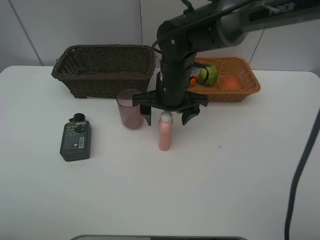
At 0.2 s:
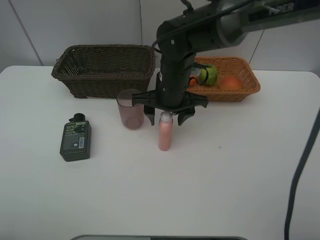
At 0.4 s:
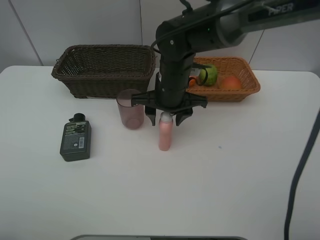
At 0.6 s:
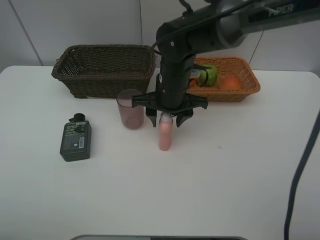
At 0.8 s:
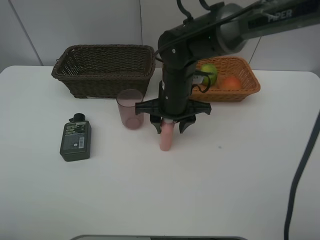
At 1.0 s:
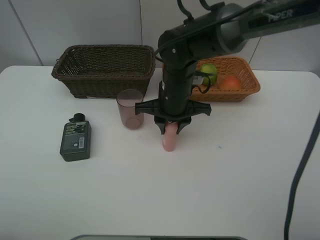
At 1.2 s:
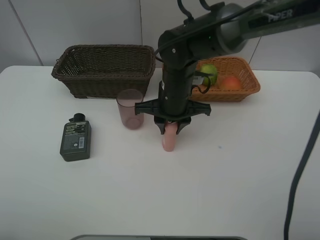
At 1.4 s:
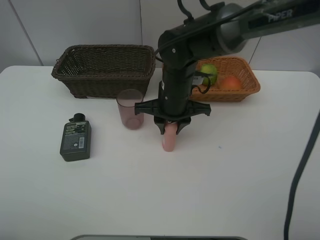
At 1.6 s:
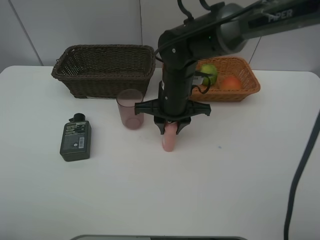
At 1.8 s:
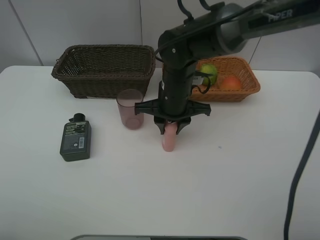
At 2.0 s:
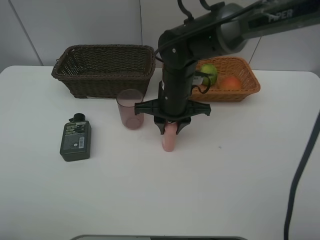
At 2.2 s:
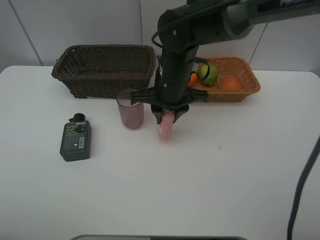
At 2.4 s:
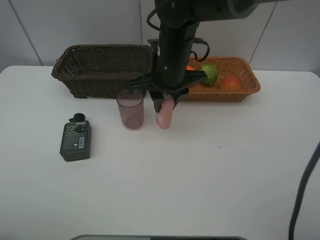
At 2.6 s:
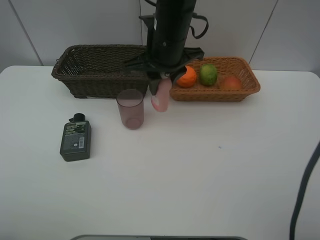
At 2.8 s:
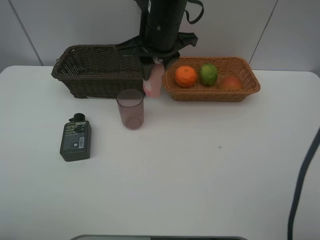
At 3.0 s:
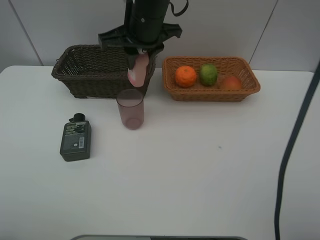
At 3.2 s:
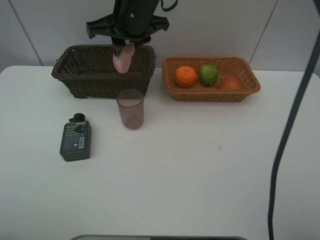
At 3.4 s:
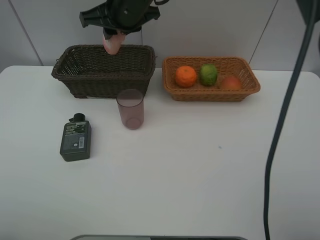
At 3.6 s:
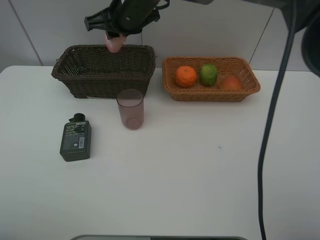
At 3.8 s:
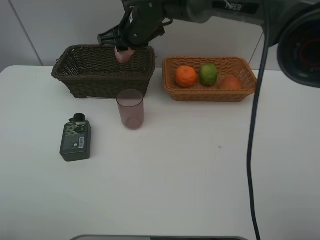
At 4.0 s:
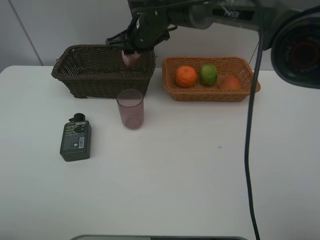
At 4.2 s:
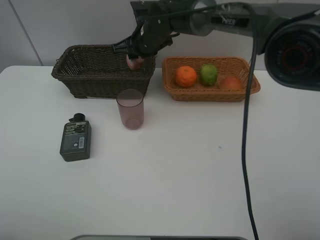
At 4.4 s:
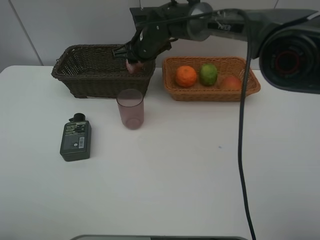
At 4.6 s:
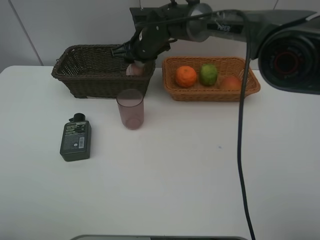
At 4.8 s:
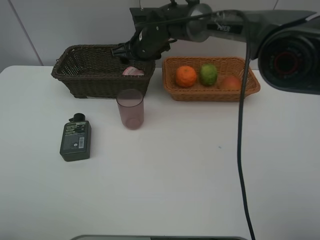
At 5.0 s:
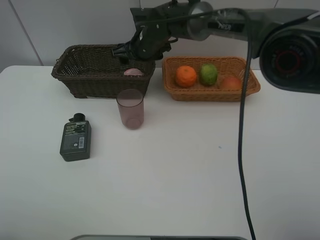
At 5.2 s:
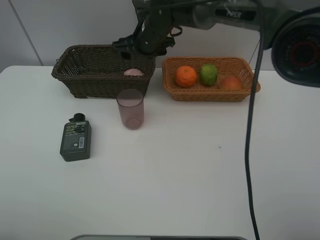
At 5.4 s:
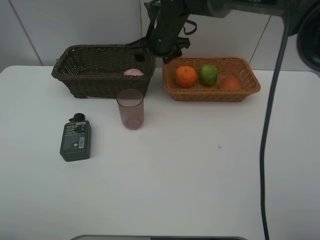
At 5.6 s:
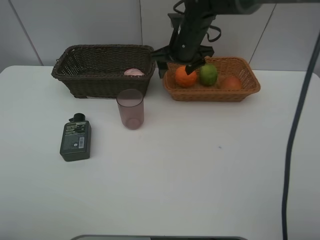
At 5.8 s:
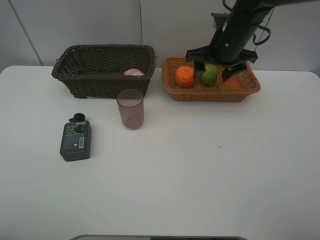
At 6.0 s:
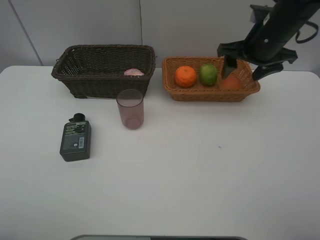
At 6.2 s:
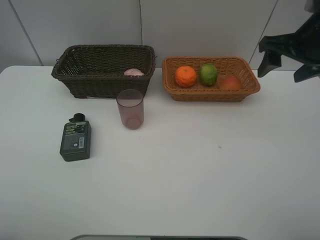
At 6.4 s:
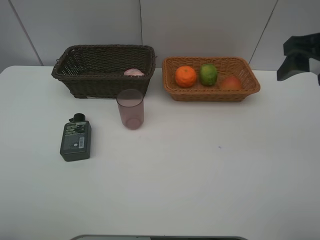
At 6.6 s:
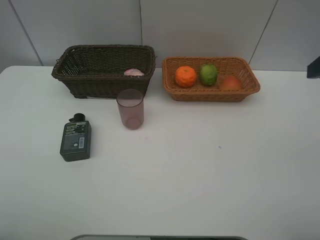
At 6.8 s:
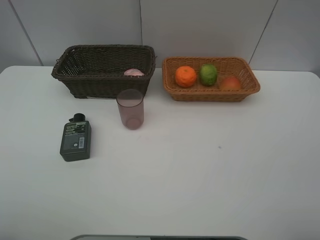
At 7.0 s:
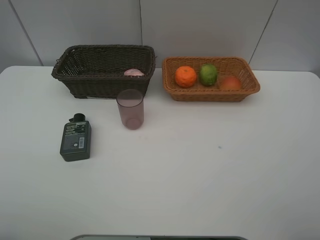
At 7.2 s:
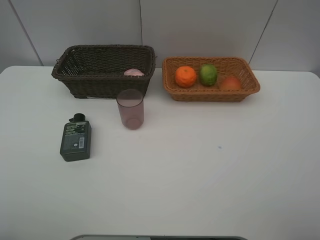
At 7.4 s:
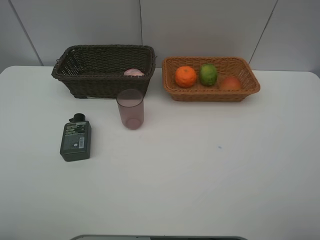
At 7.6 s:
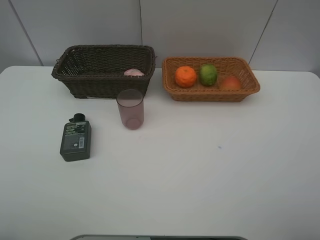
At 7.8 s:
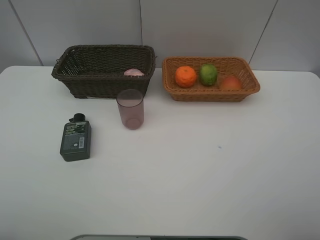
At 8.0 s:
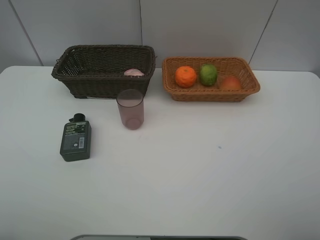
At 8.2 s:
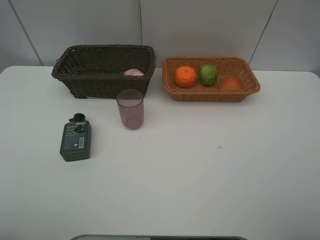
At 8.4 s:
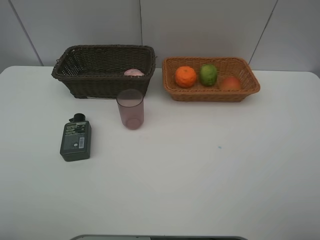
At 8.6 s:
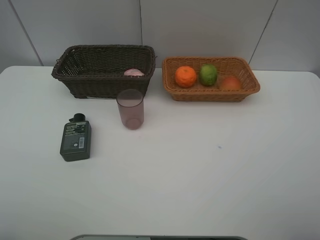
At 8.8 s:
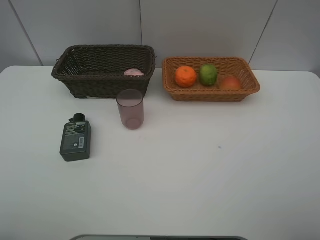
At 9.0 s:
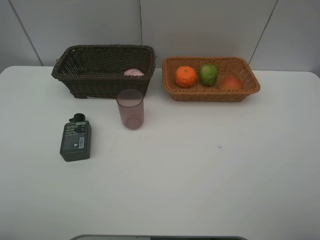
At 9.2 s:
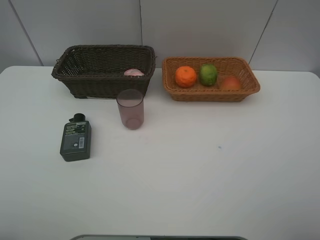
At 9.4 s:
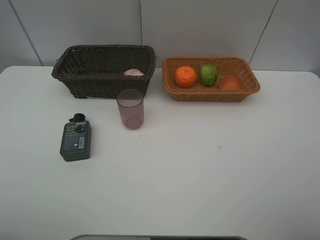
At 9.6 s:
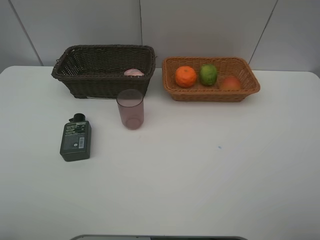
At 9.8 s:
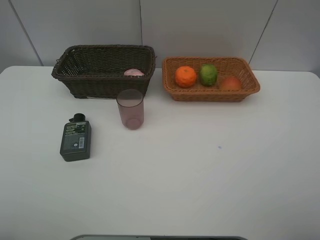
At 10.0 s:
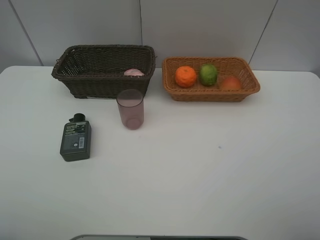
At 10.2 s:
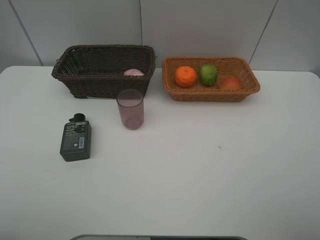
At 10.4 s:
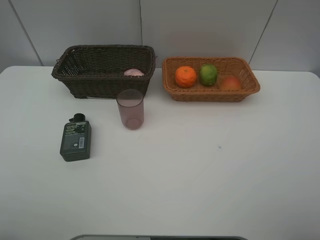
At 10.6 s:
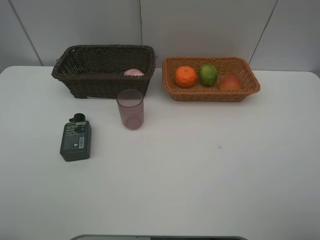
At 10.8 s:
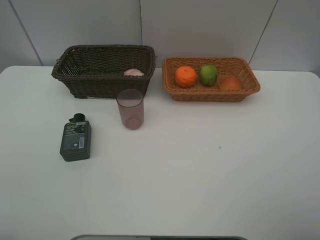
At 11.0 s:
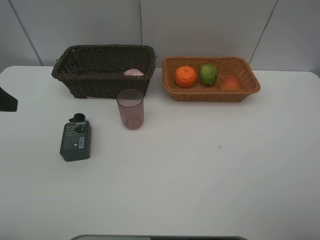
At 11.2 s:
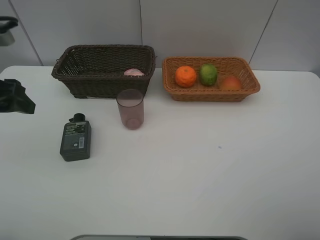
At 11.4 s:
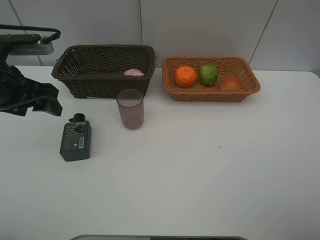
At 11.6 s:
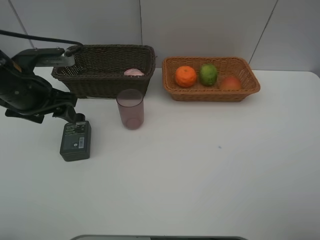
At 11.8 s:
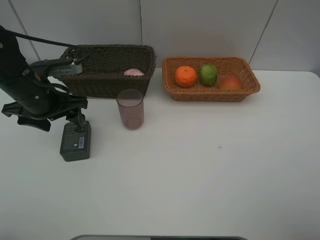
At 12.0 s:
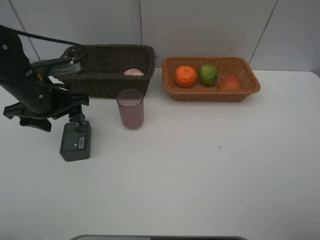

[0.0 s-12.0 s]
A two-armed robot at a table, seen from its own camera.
Task of the whole recording: place multiple objects separately in different baskets.
0.0 to 1.6 s: The right gripper closes.
1.6 to 3.0 s: The right gripper moves upward and to the left, approximately 15 cm.
3.0 to 4.4 s: The right gripper goes roughly 15 cm downward and forward.
4.4 to 6.0 s: The right gripper is displaced to the right and backward by roughly 25 cm, and opens its fingers.
6.0 to 7.6 s: The right gripper is displaced backward by some 35 cm.
10.4 to 12.0 s: The left gripper is displaced forward and downward by about 30 cm.

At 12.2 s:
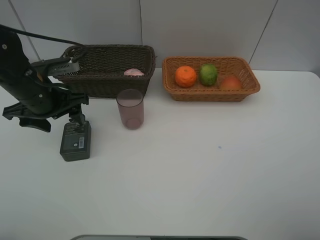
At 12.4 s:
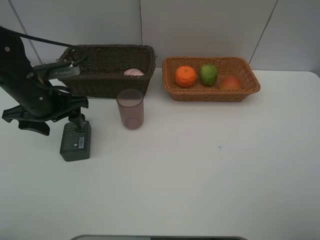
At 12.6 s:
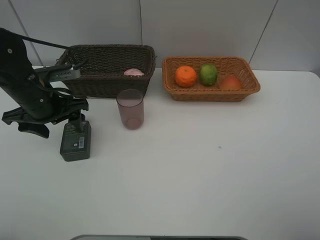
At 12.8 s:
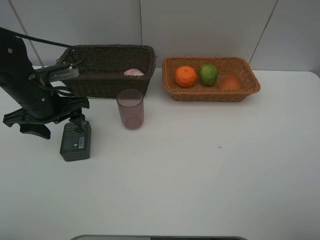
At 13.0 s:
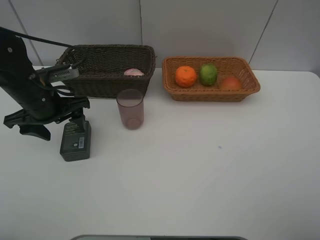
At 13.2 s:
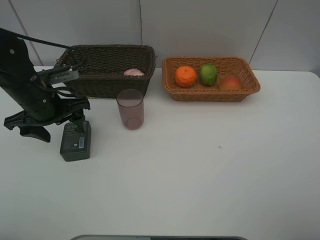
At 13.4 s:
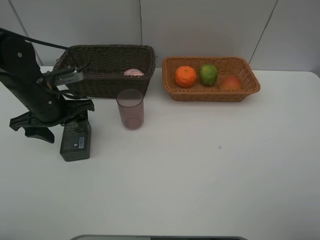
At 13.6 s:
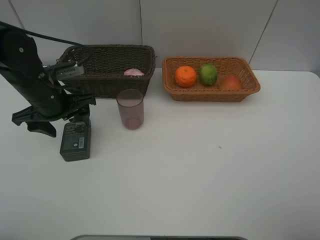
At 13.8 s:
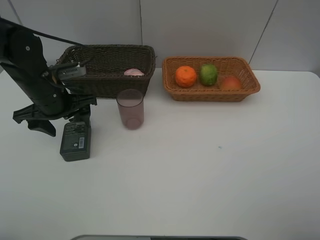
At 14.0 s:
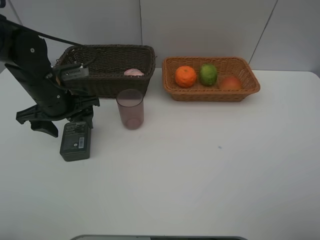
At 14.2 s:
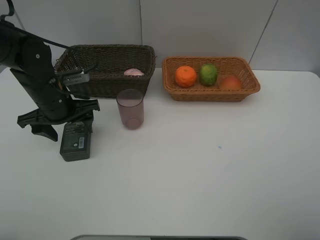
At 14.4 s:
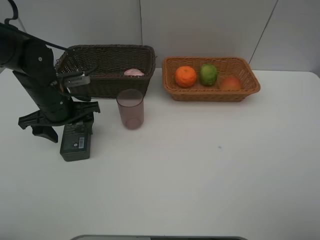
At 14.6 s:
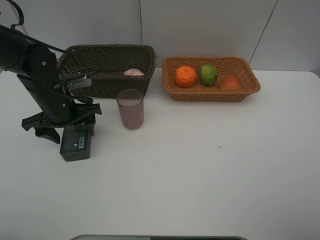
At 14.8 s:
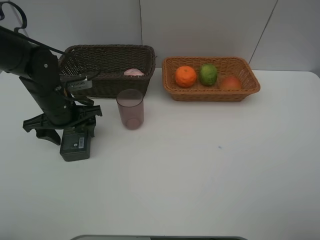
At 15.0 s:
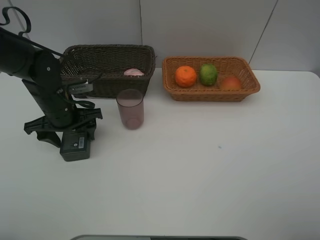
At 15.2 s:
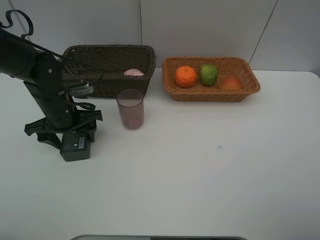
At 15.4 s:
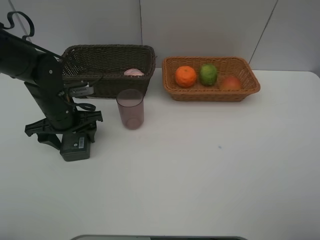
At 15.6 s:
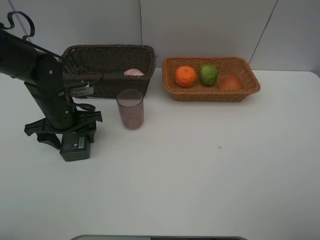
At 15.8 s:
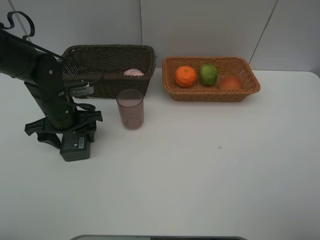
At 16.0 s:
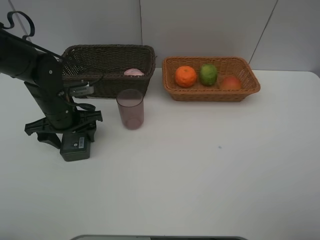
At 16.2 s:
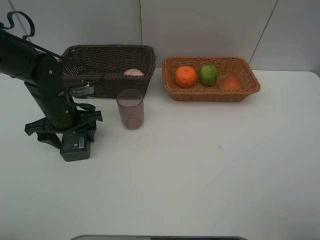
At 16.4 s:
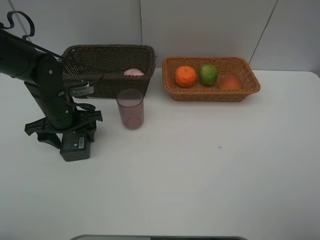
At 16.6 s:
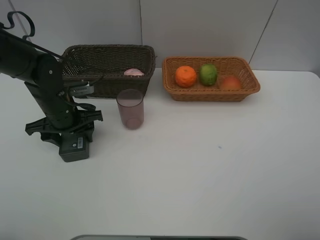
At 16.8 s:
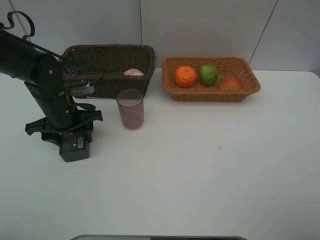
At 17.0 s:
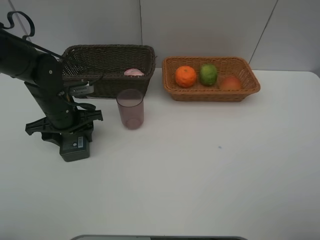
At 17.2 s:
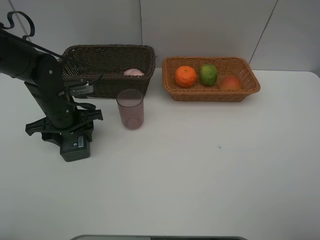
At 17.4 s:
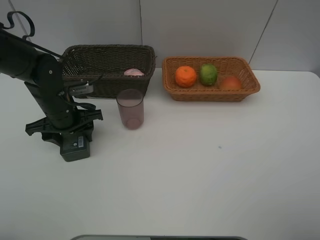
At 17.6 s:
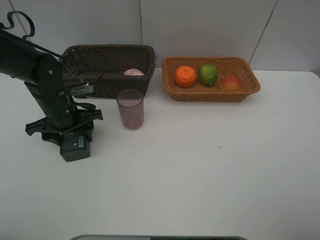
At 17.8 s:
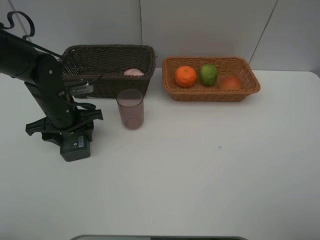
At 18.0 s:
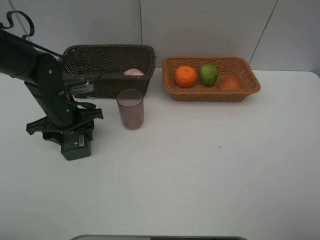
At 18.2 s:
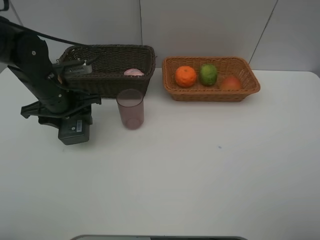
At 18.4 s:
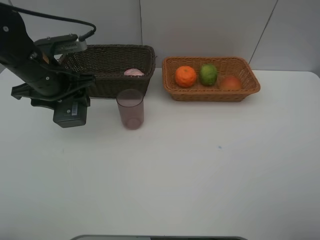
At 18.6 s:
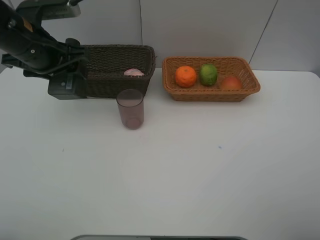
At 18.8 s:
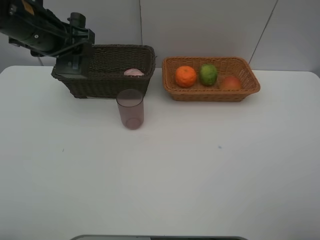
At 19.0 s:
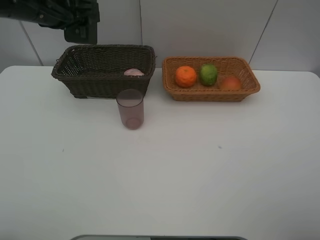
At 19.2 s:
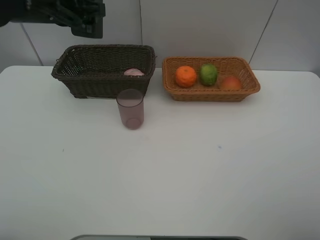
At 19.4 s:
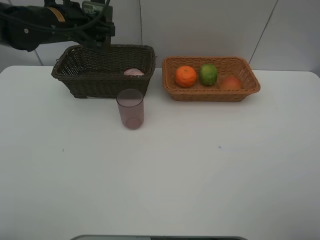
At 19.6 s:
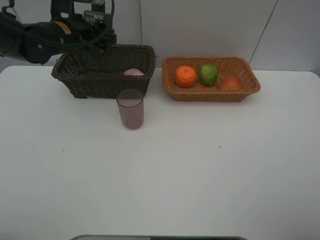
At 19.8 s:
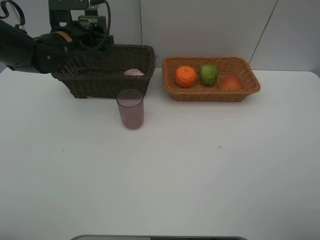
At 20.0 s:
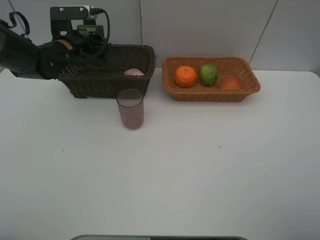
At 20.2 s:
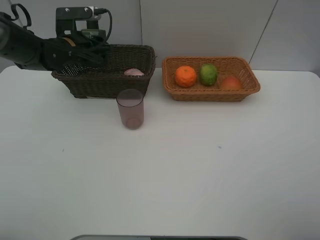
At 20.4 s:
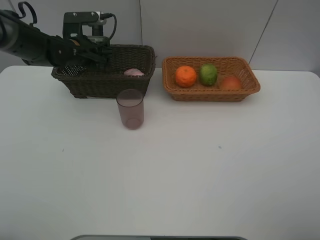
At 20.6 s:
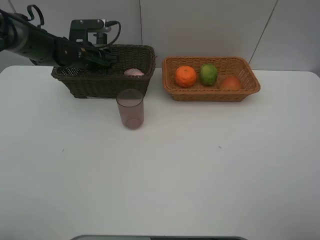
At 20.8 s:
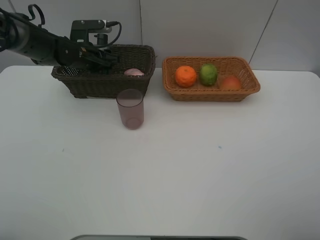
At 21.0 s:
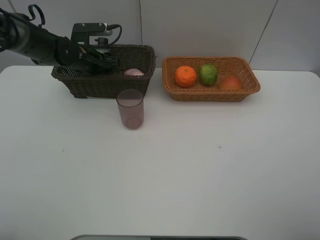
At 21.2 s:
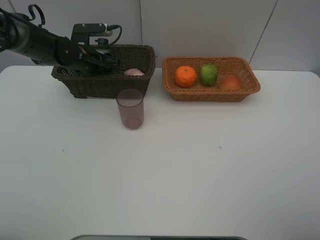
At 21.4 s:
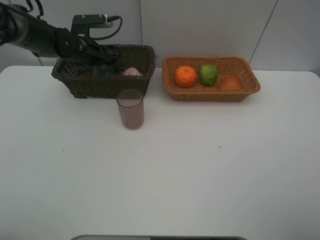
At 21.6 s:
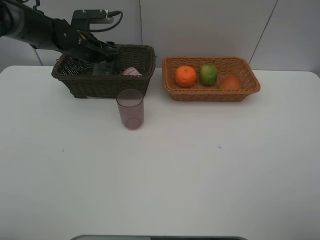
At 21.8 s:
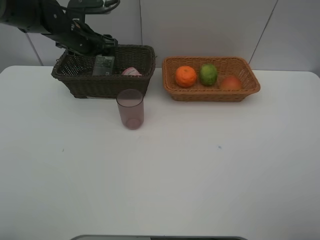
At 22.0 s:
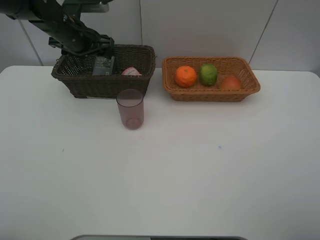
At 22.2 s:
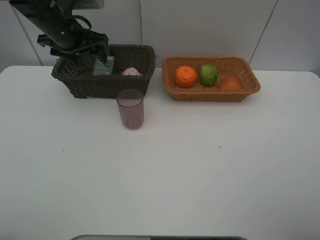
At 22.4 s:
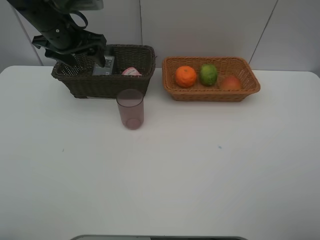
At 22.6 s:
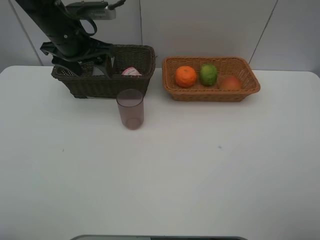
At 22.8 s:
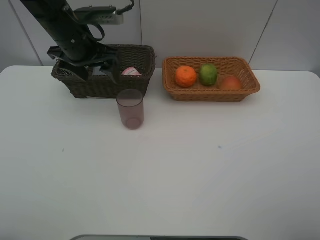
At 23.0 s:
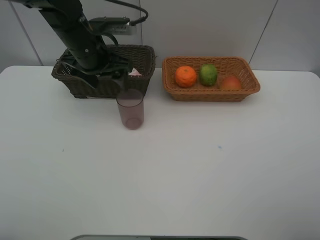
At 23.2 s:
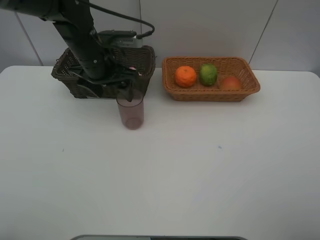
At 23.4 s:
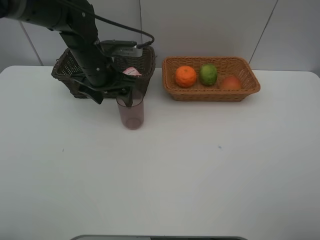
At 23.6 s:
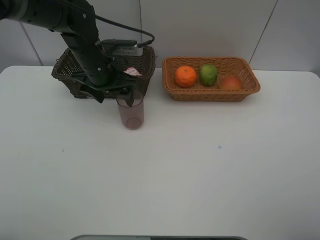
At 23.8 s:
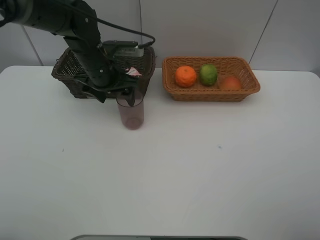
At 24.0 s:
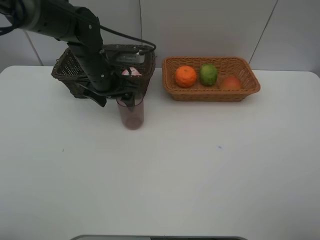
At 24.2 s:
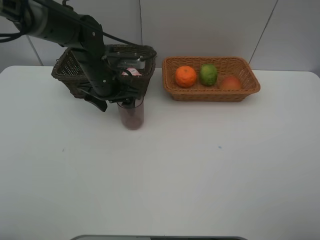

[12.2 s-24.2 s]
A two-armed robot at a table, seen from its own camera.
Task of the whole recording: place multiple objects separately in different baskets.
12.2 to 13.8 s: The grippers make only small movements.
13.8 to 15.2 s: The grippers move only a little.
15.2 to 16.6 s: The two grippers keep their place.
16.6 to 18.2 s: The left gripper travels upward by approximately 5 cm.
18.2 to 19.8 s: The left gripper goes some 10 cm forward, and travels upward and back again, some 15 cm each way.
19.8 to 21.2 s: The left gripper shifts approximately 5 cm downward.
21.2 to 22.6 s: The left gripper travels upward and backward by approximately 15 cm.
22.6 to 24.2 s: The left gripper moves downward and to the right, about 10 cm.
